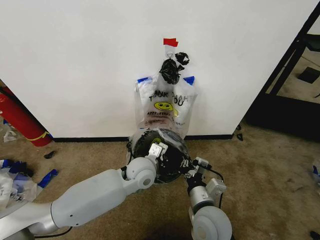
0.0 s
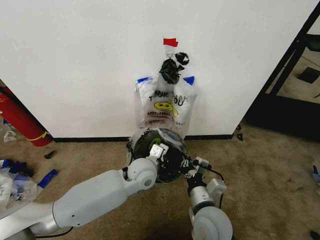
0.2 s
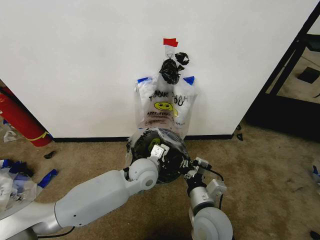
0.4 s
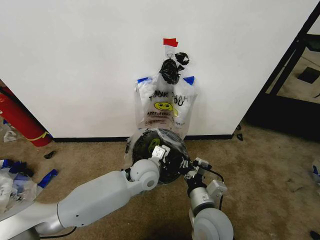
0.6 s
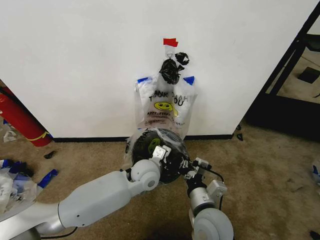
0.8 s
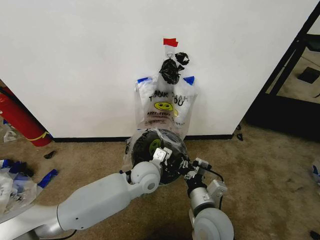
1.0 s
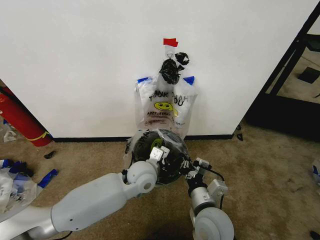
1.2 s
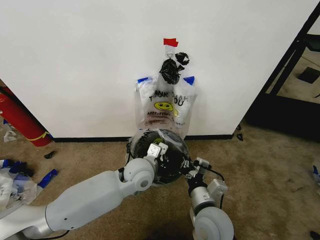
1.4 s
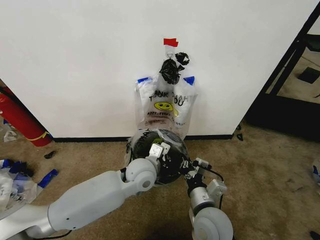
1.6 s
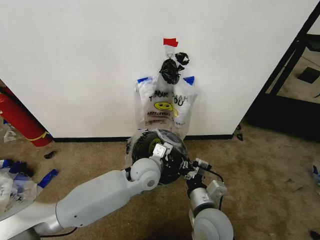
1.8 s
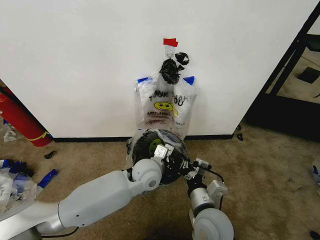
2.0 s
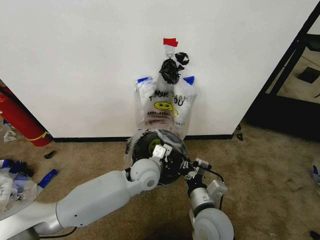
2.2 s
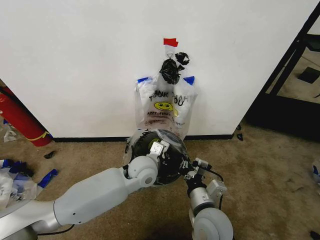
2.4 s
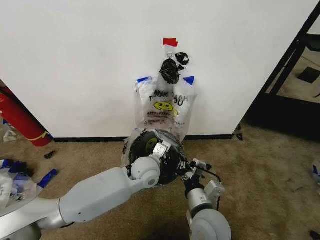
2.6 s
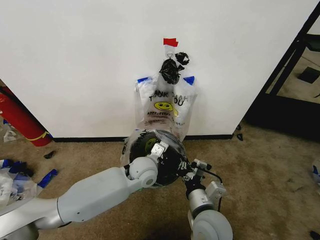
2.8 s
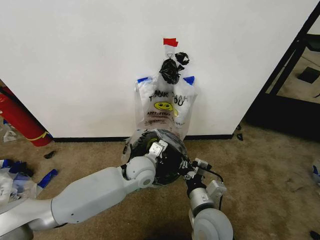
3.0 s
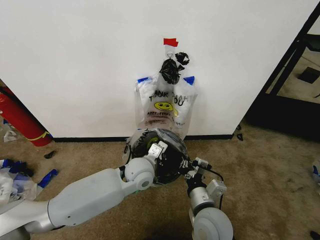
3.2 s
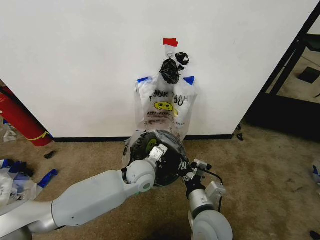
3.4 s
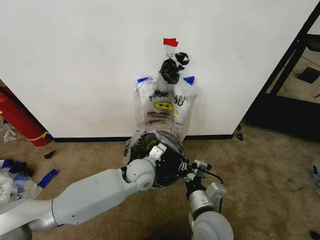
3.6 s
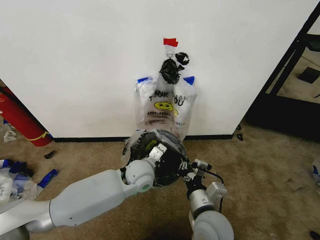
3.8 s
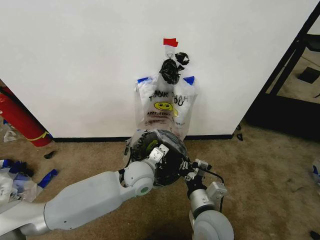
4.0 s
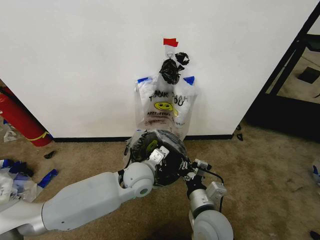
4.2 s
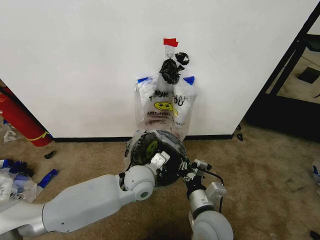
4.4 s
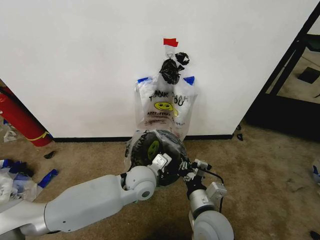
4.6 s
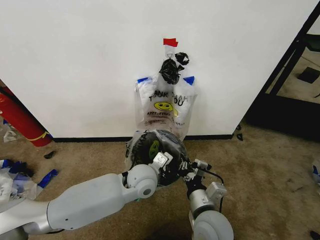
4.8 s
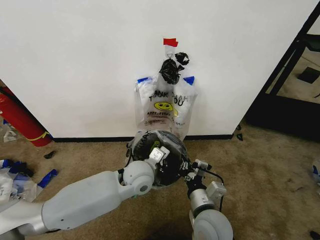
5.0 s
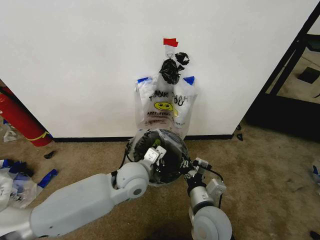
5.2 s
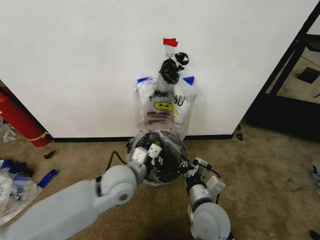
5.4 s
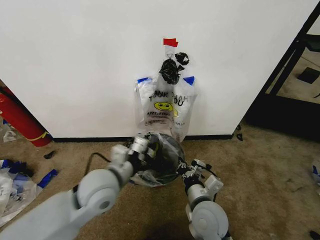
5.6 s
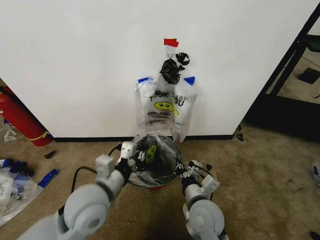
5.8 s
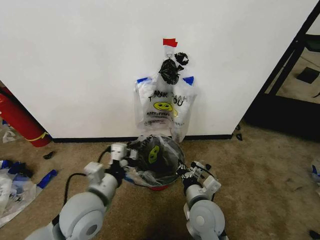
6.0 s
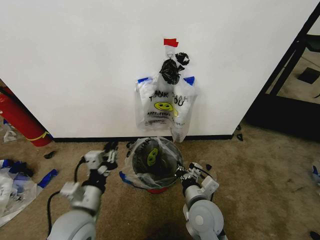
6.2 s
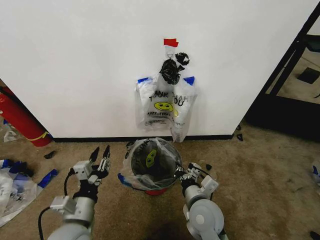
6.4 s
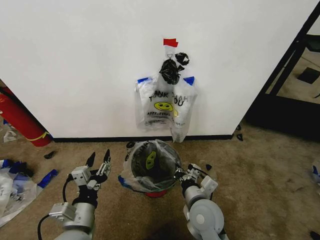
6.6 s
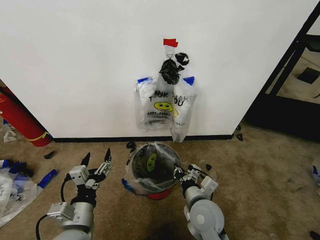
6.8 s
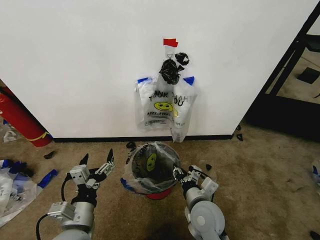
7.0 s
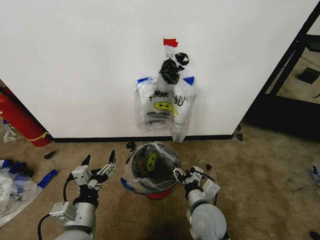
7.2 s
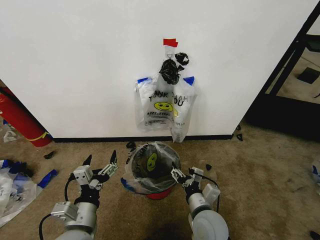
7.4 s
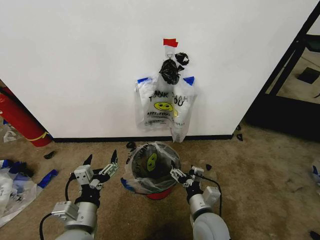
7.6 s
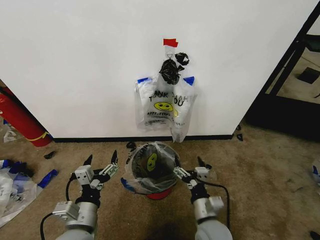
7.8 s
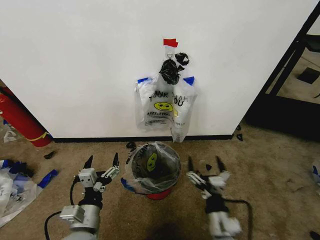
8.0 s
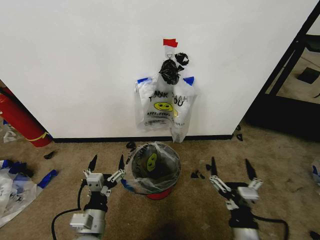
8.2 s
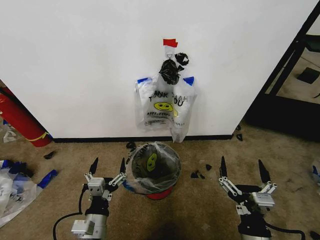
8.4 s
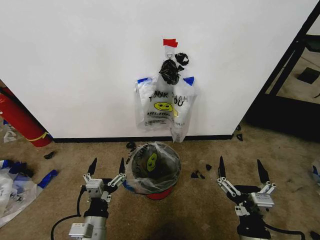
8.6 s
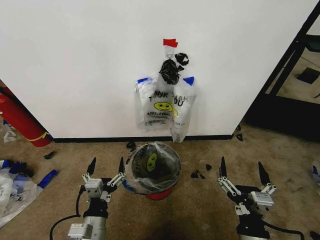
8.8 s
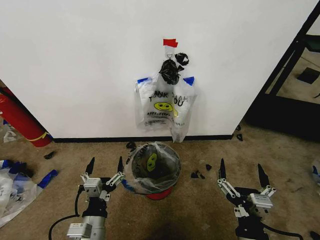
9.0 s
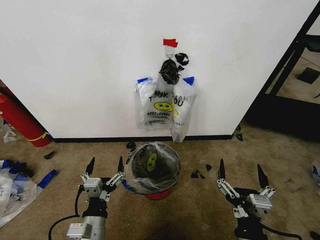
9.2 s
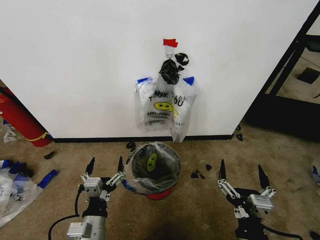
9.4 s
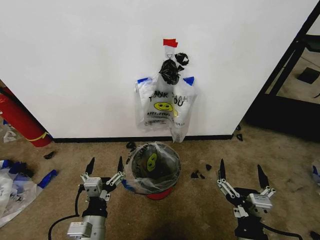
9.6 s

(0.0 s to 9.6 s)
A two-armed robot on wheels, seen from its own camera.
Task of the whole recording: Pick up the garbage bag from the wall and place it over the trash bin.
0.0 s - 4.8 s: There are only small adjustments of the grippers.
4.8 s - 6.4 s: The left gripper heads to the left and backward, covering some 25 cm, and opens up.
6.4 s - 8.0 s: The left gripper opens, while the right gripper travels backward by approximately 10 cm, and opens up.
8.0 s - 9.6 s: The right gripper heads backward and upward, covering roughly 10 cm.
